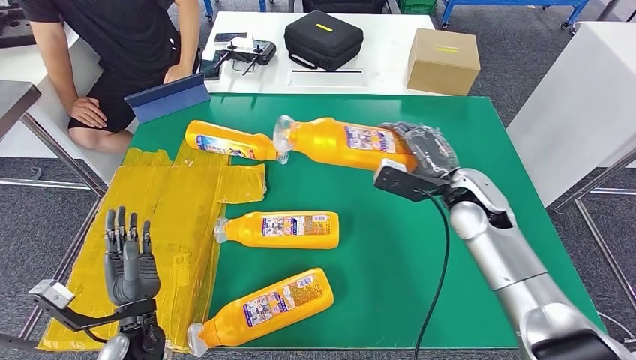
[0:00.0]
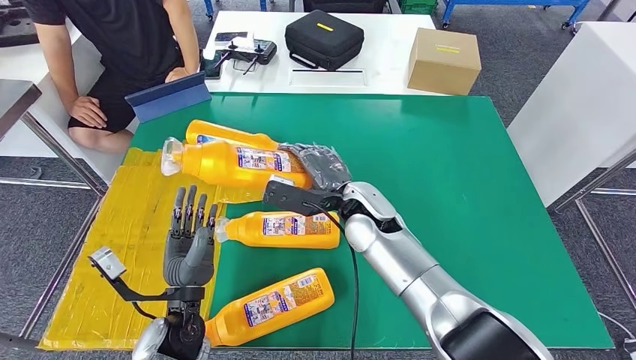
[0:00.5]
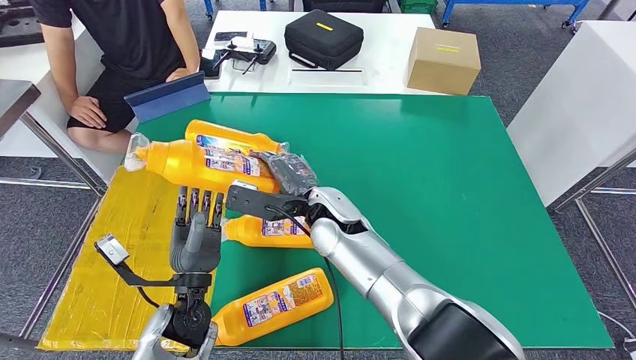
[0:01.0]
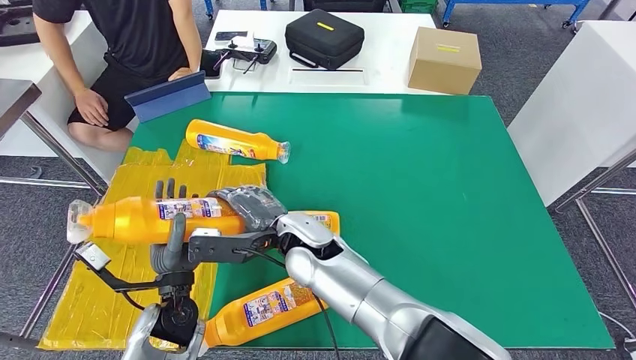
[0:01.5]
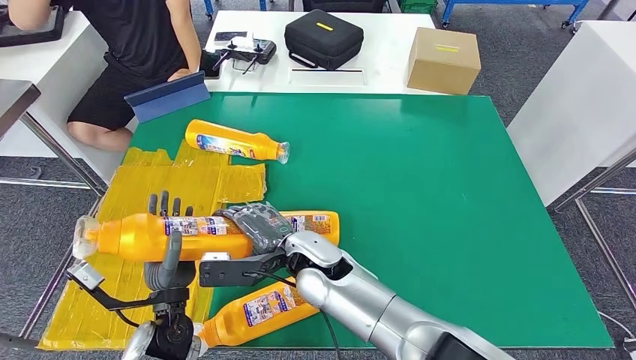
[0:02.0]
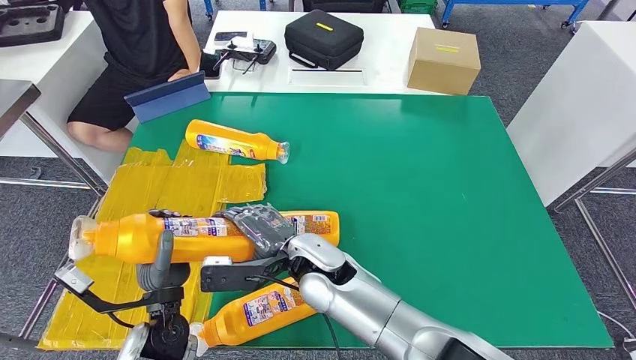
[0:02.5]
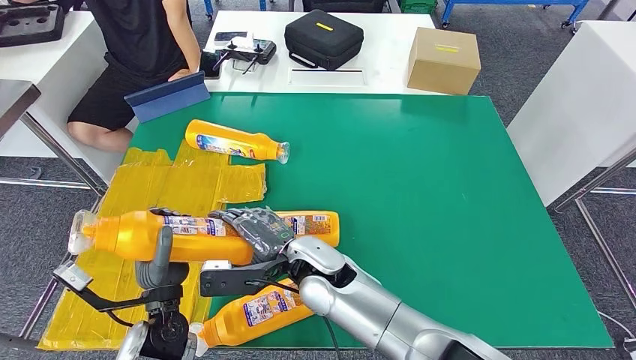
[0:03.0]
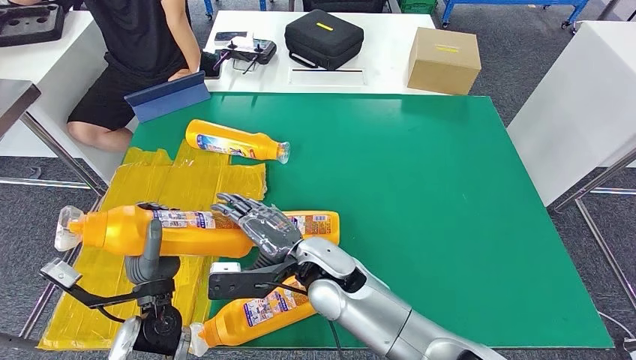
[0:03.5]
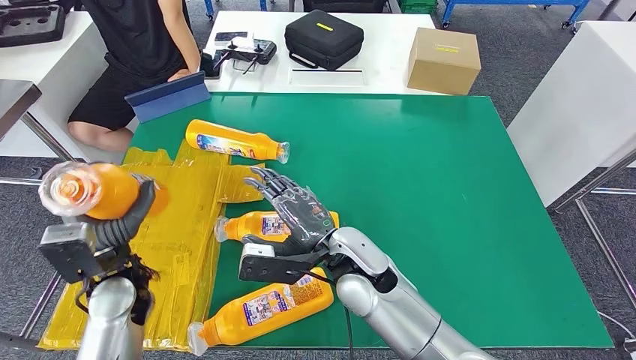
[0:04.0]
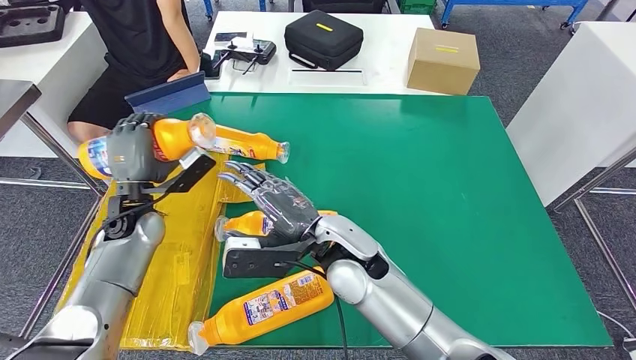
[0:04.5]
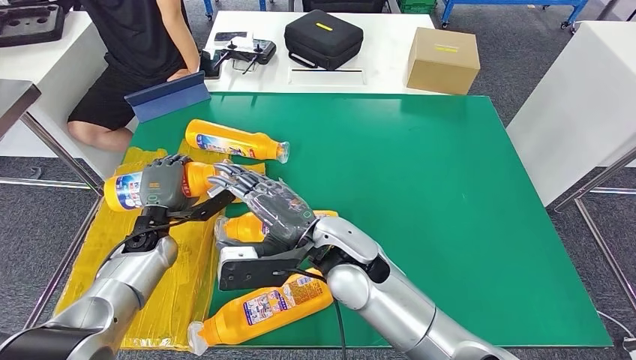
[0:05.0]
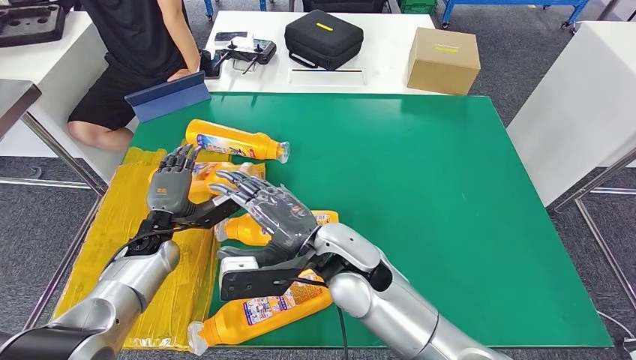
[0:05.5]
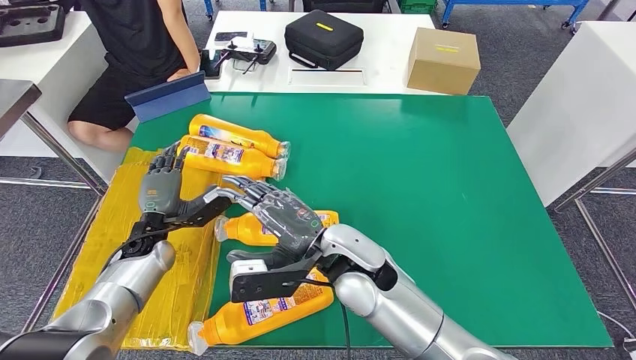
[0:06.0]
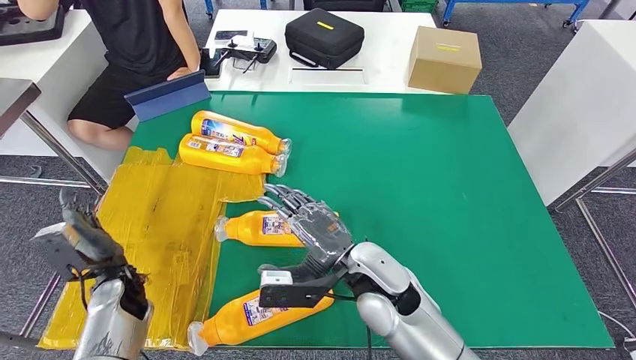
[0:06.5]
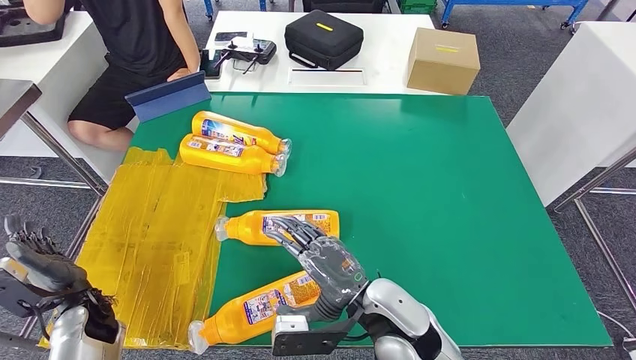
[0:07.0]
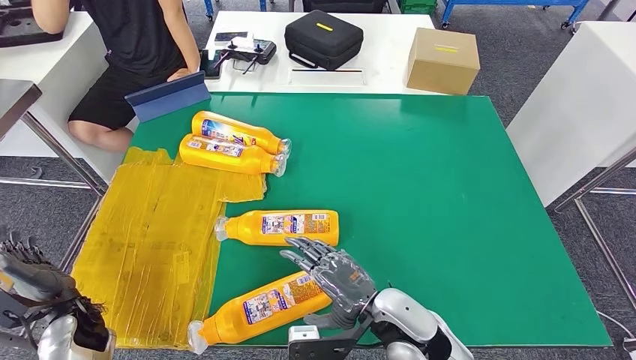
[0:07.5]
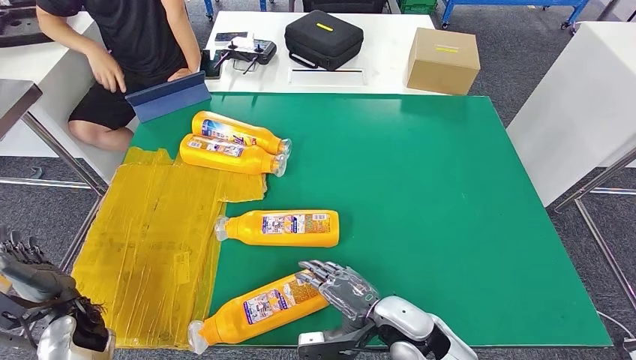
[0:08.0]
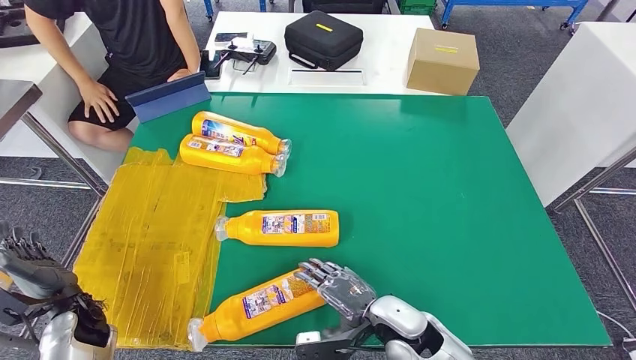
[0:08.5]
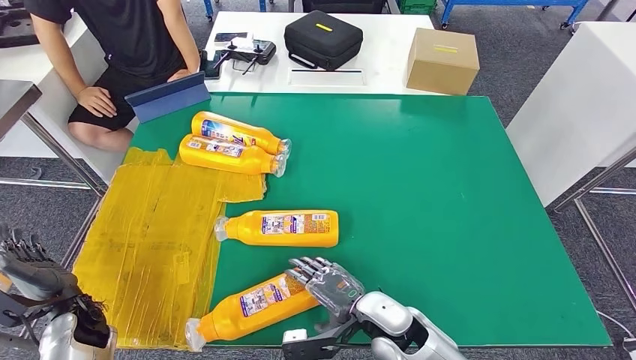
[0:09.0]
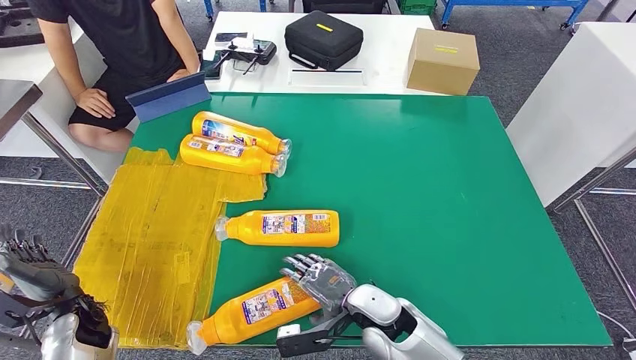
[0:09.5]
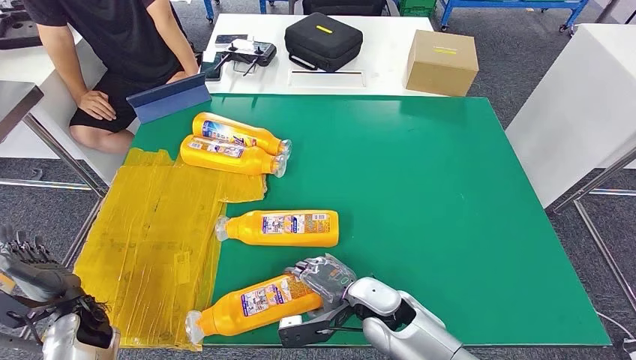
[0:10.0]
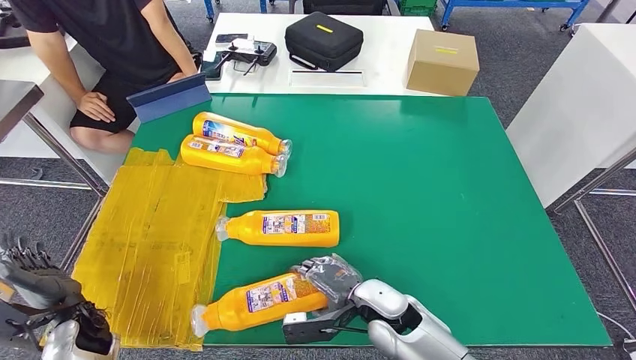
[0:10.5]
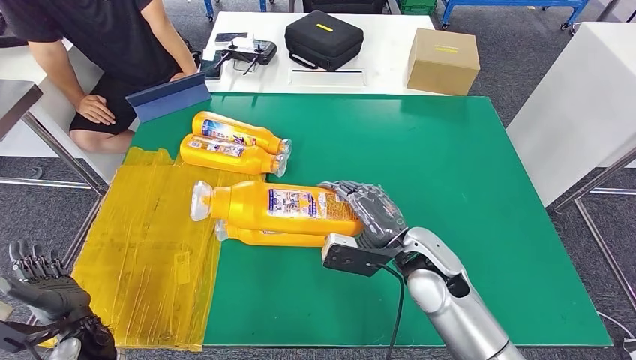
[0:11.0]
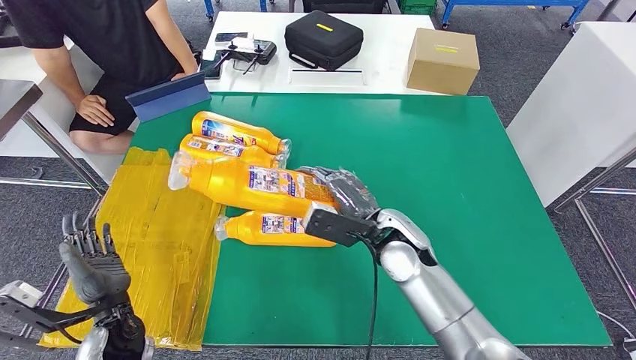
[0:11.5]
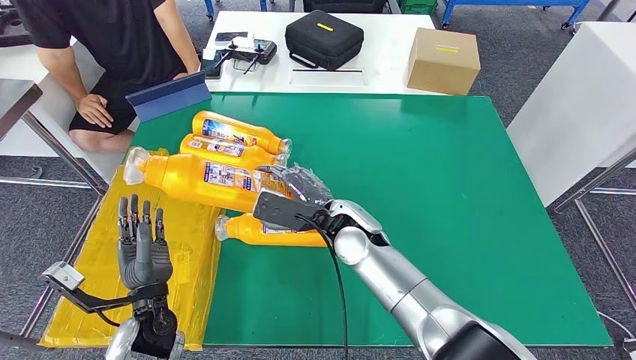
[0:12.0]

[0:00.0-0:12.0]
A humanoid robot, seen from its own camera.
Step, 0:01.5 to 0:05.5: Flip the bottle to face forward.
0:02.0 to 0:04.0: The left hand heads upward, to the left and forward, covering about 10 cm. The right hand moves to the right, about 5 cm.
0:04.0 to 0:06.0: The left hand moves forward and downward, about 15 cm.
0:08.0 to 0:10.0: The right hand shifts by about 5 cm.

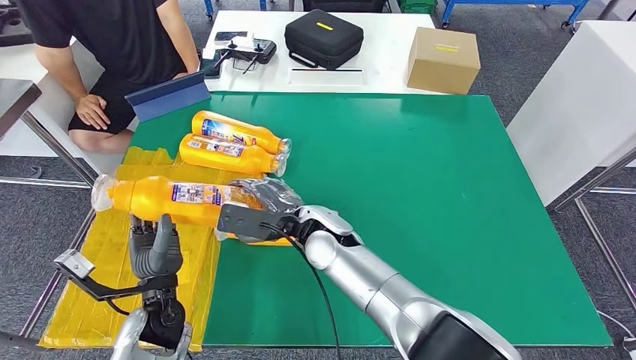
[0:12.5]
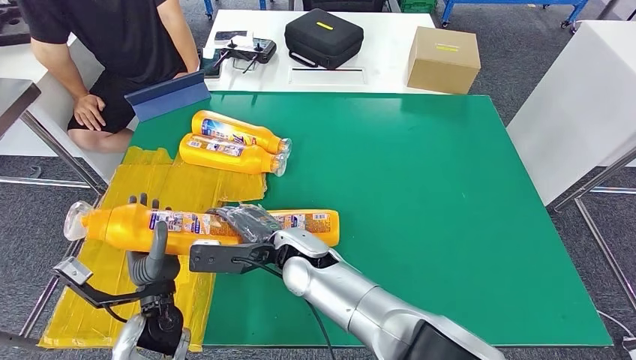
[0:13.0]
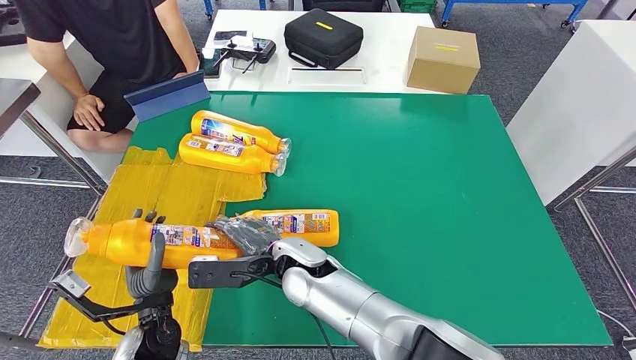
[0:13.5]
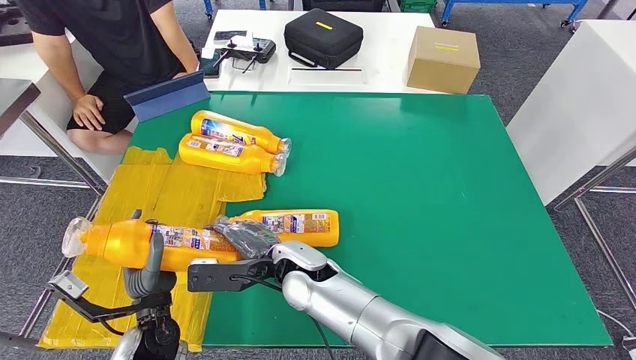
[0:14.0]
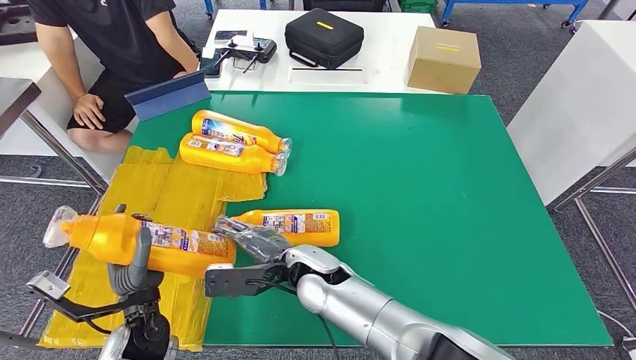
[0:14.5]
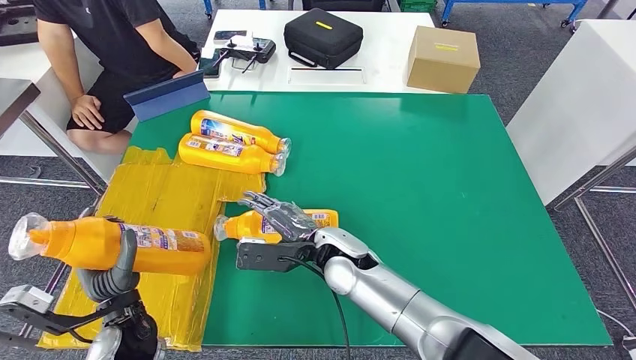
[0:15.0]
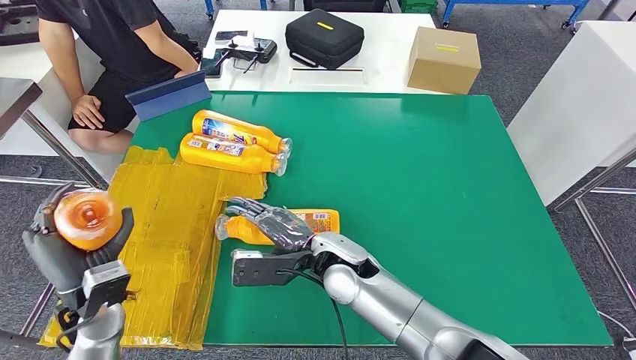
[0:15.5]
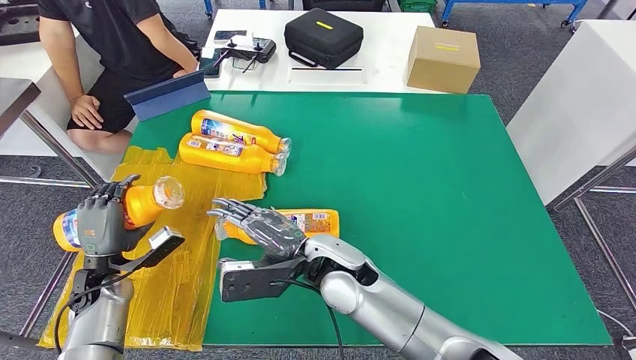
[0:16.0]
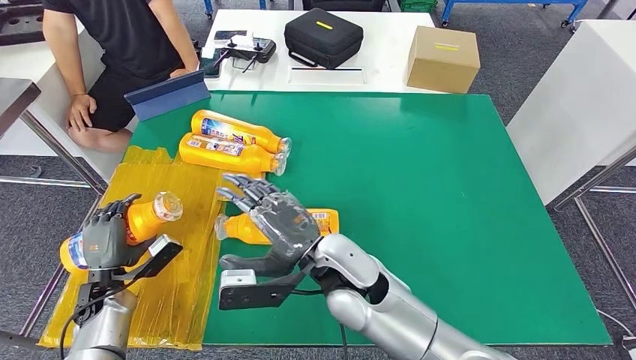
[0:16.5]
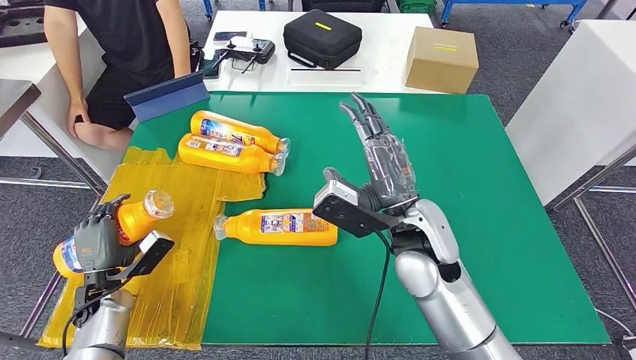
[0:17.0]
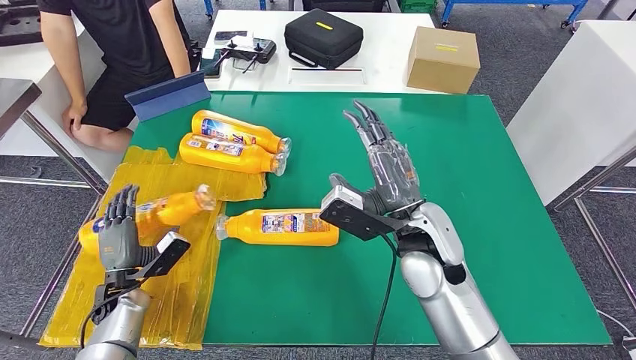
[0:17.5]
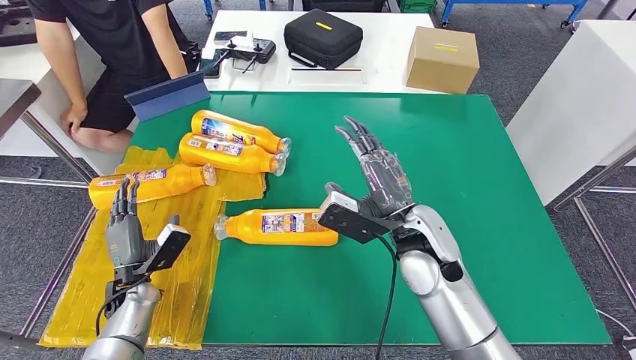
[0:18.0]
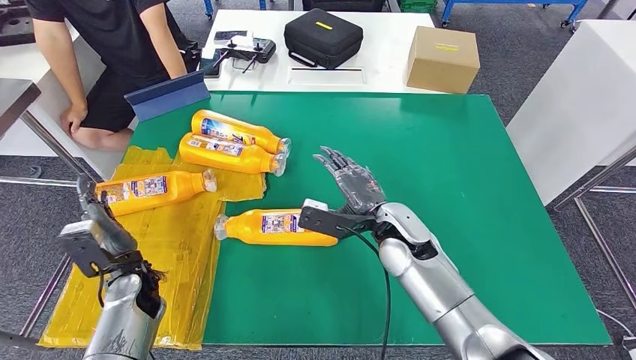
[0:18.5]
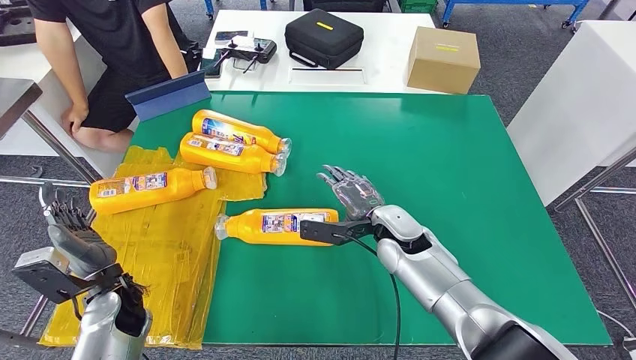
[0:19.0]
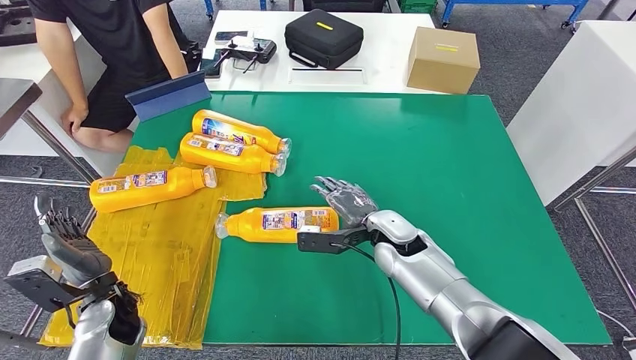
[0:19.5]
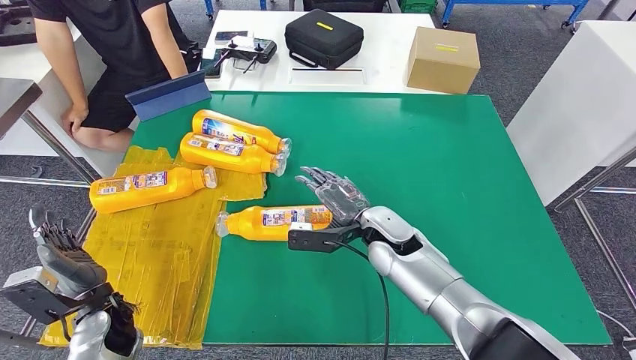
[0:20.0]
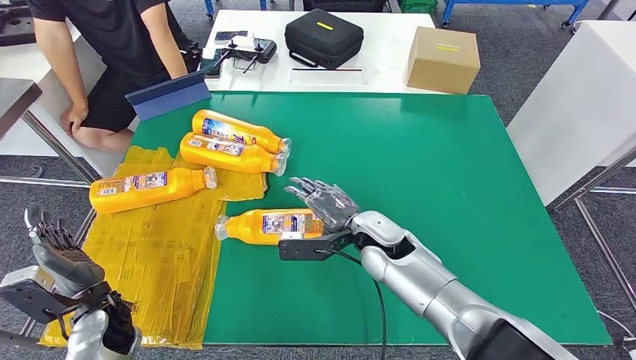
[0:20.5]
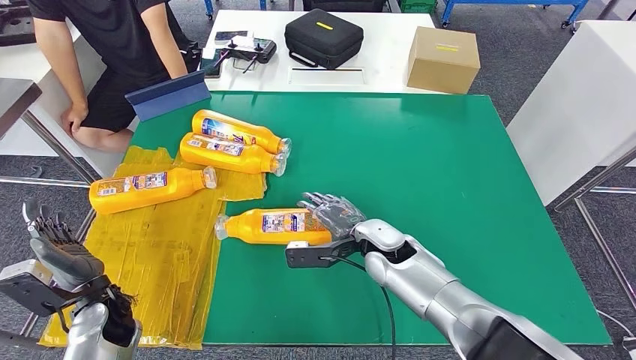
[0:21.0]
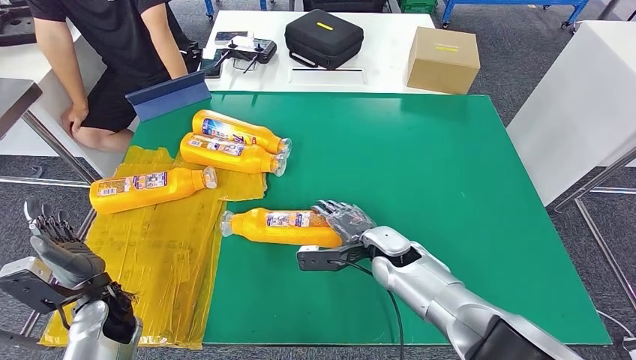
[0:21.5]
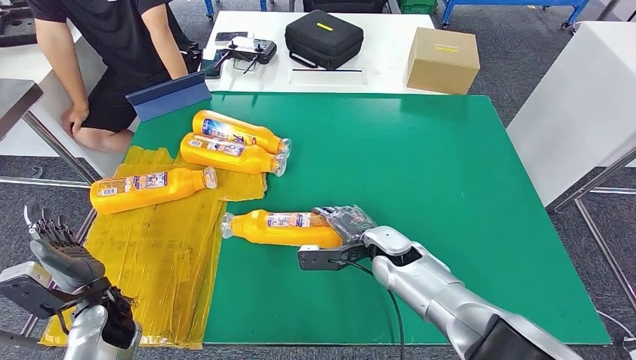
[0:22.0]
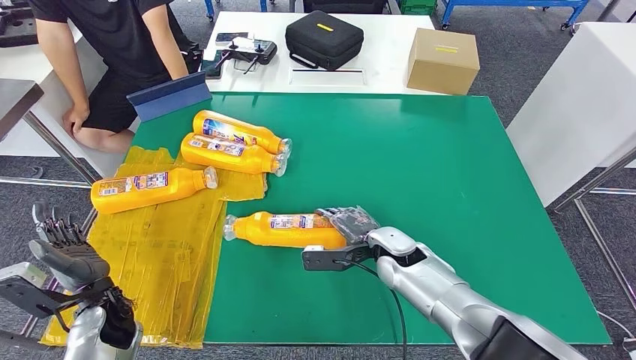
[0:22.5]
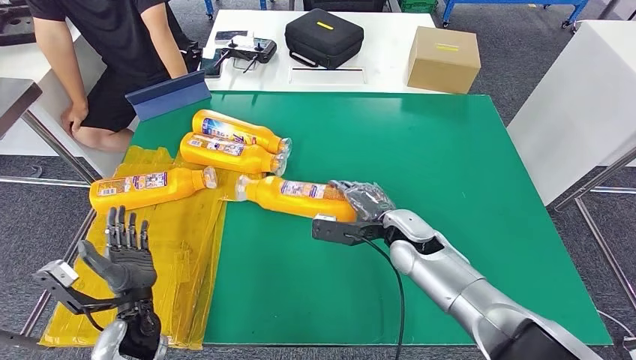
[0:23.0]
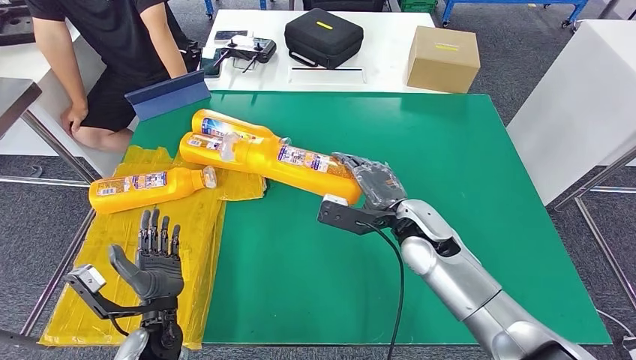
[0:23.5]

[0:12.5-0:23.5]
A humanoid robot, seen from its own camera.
Step, 0:14.5 to 0:17.5: Flip the bottle to face forward.
0:14.5 to 0:16.0: The right hand travels upward by some 5 cm; the left hand goes some 15 cm to the left and forward.
0:18.0 to 0:20.0: The right hand heads downward and forward, covering roughly 10 cm. Meanwhile the left hand heads backward, covering about 5 cm.
0:20.0 to 0:21.5: The right hand is displaced downward by roughly 5 cm.
